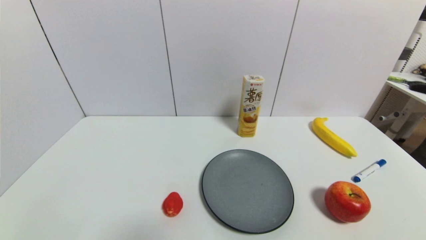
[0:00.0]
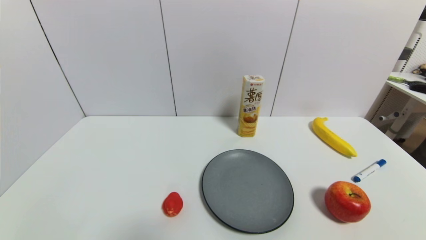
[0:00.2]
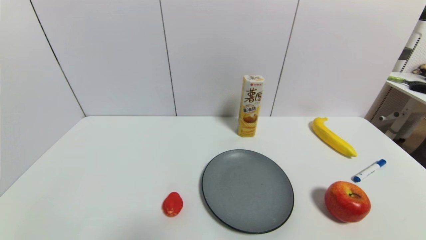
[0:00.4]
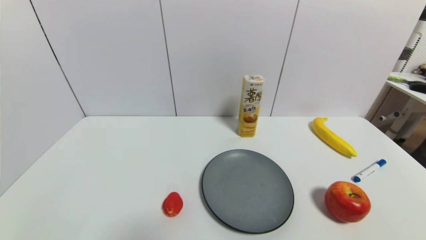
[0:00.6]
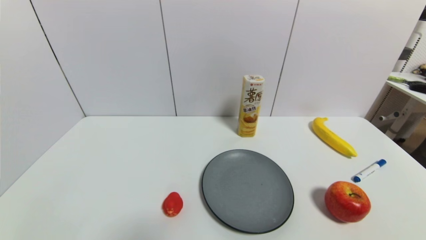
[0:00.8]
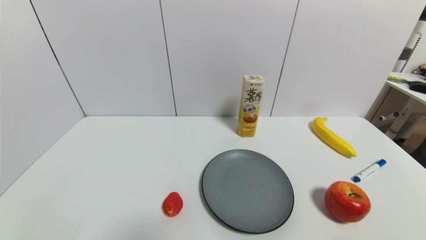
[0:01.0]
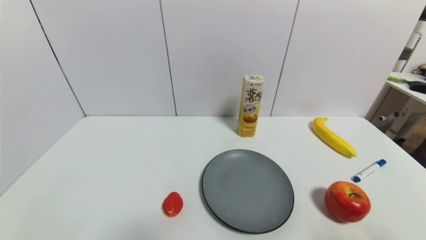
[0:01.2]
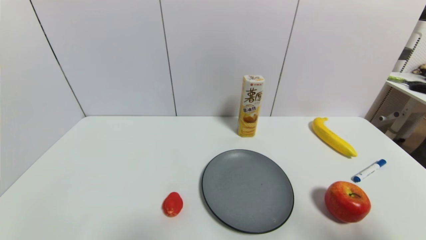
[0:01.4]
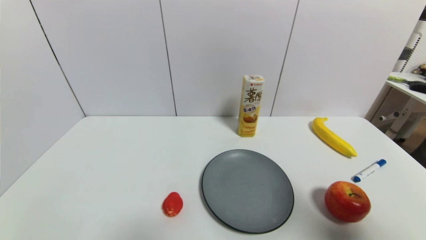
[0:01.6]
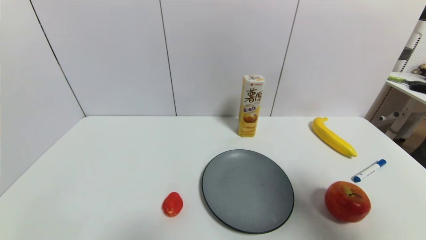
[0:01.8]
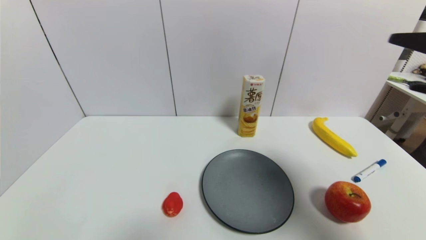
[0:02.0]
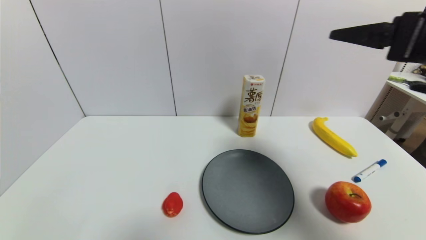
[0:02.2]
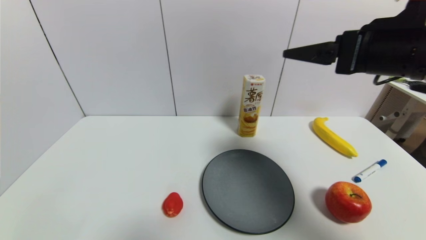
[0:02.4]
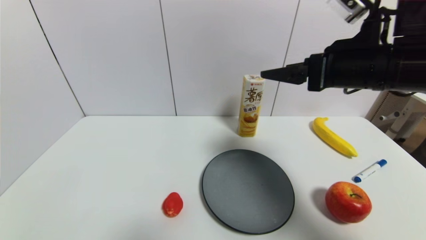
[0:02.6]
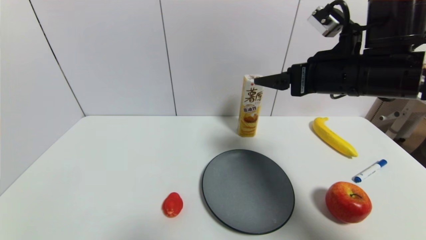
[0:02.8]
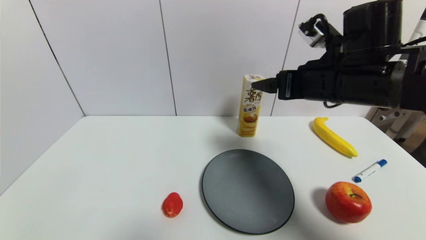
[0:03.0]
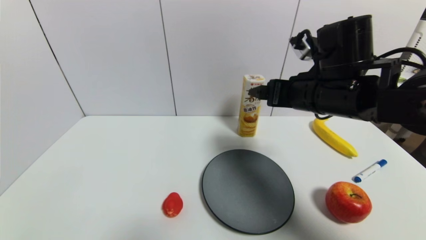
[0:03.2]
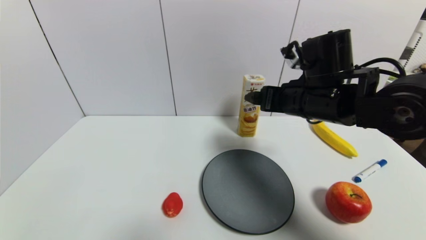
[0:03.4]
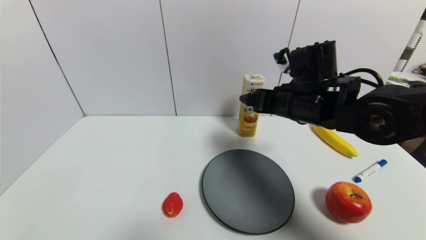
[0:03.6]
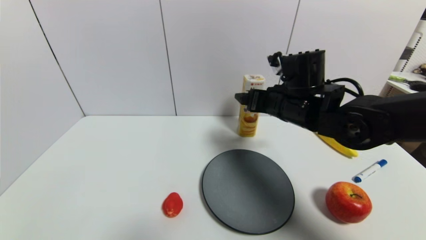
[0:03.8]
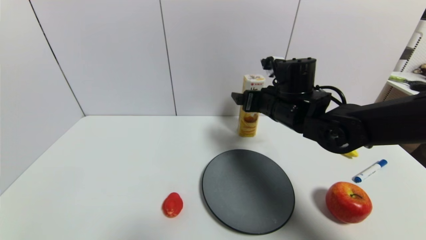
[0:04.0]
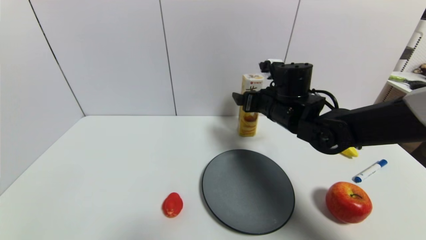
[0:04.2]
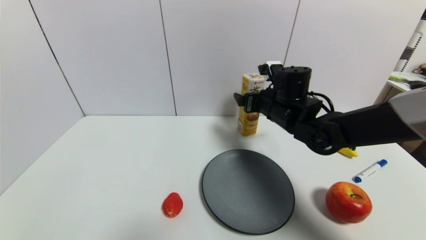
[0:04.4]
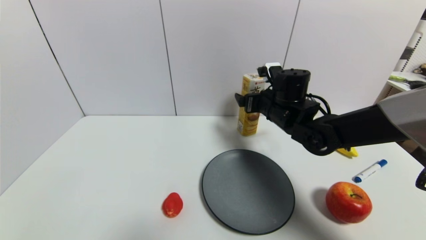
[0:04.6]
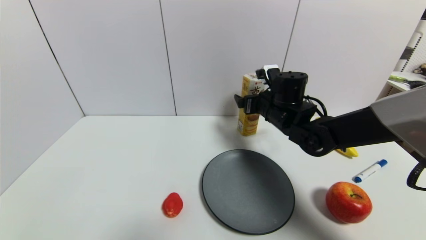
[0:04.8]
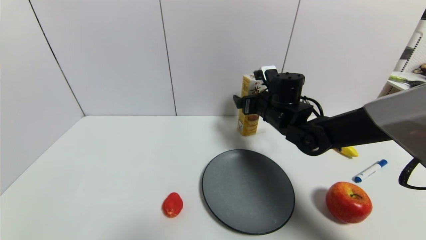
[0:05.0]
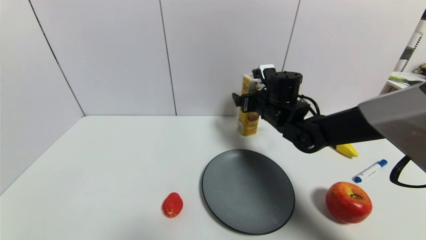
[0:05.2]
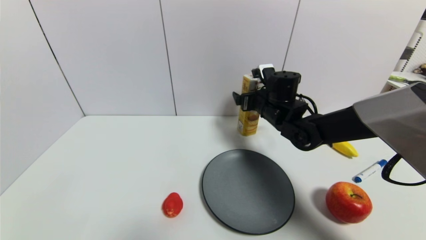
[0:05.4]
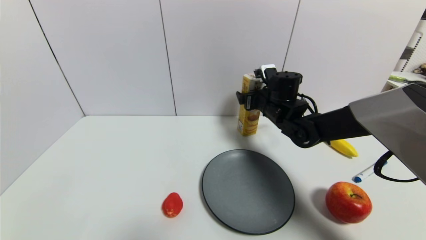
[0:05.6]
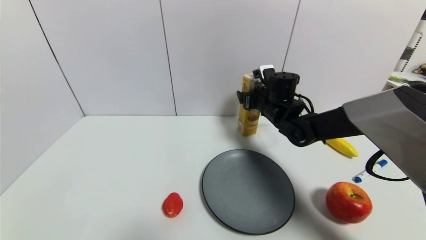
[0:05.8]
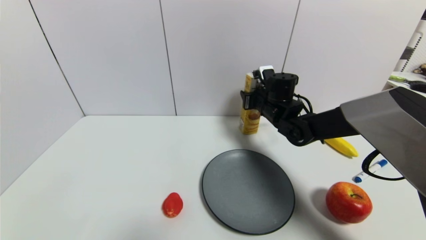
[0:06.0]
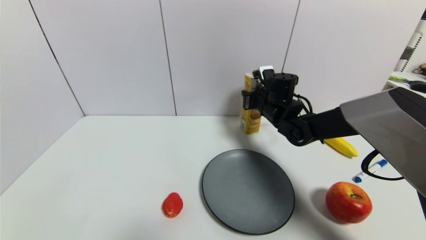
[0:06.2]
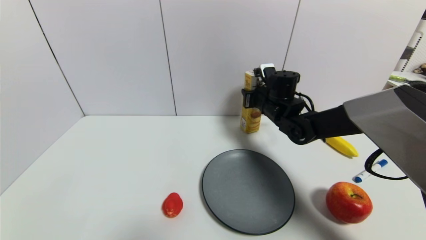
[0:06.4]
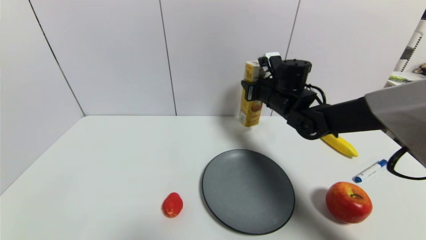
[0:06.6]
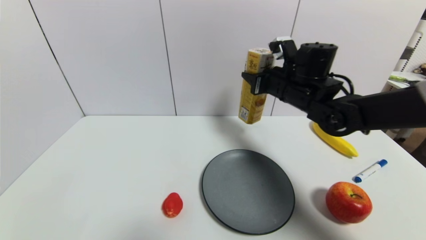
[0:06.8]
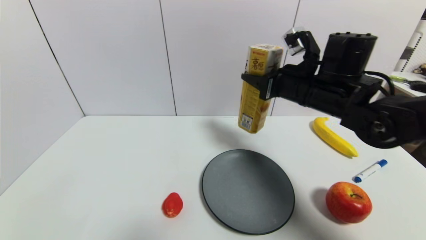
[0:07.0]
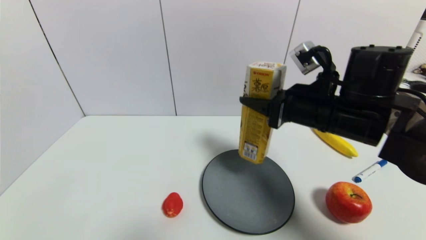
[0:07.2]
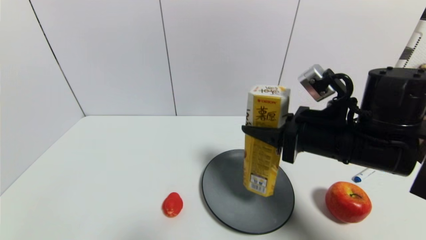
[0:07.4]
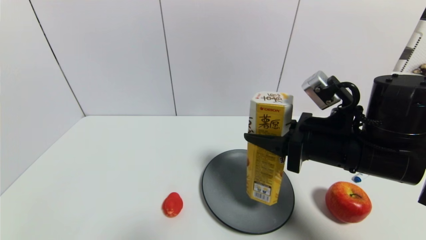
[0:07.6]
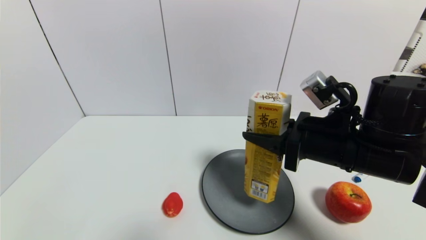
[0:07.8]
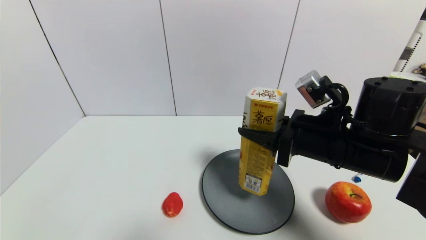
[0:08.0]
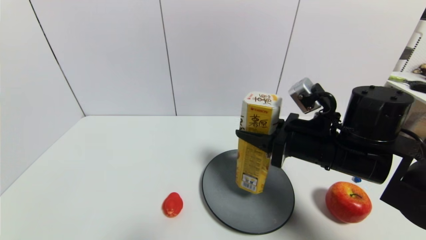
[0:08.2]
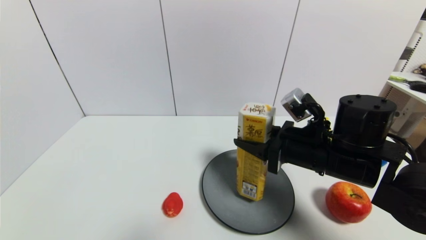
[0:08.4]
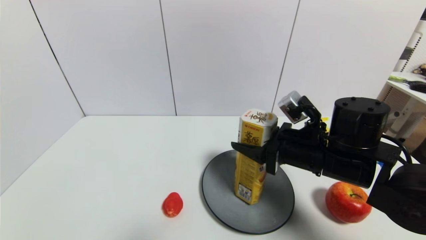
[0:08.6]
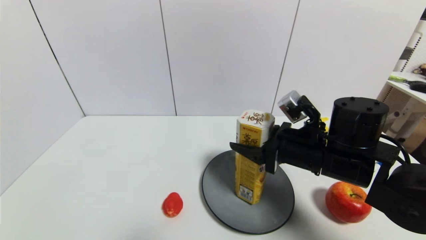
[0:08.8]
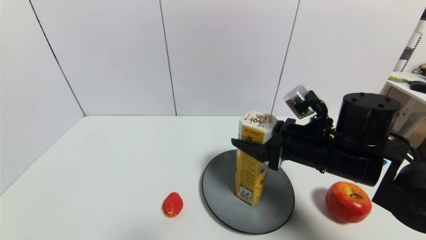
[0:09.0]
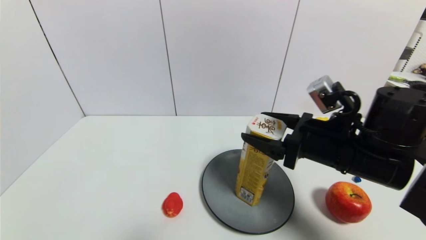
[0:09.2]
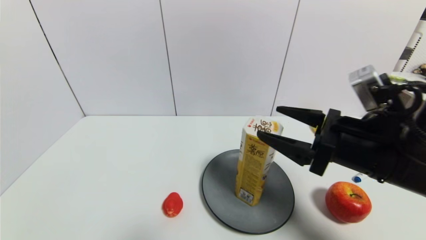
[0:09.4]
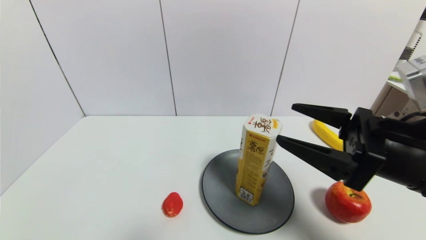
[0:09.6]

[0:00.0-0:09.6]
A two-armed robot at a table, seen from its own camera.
Task of the whole recording: use a gripper to pick the target object and place on the gray plate.
Step, 0.0 to 6.2 s: Grasp the potato chips with the right gripper.
Step, 6.4 to 9.2 s: Place the potato chips on the gray plate with the right gripper.
0.0 to 1.6 s: The right gripper heads upward, covering some 20 cm.
1.6 to 3.2 s: The right gripper is displaced forward and to the left by some 30 cm.
3.2 to 4.8 s: The right gripper goes some 15 cm forward and downward.
4.8 to 6.4 s: The right gripper closes.
6.4 to 8.0 s: The right gripper goes approximately 20 cm backward.
8.0 to 9.6 s: The right gripper shifts about 5 cm backward, and opens its fingers.

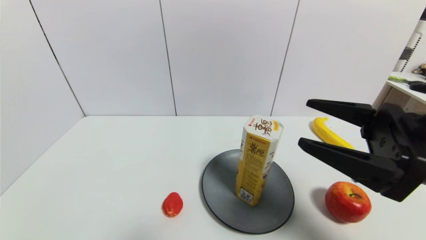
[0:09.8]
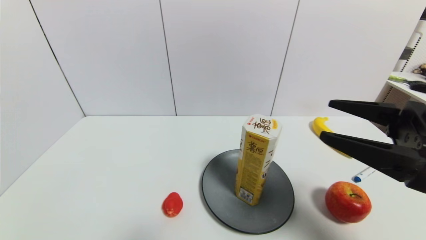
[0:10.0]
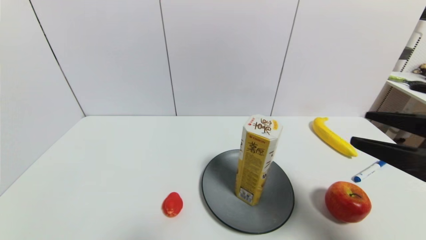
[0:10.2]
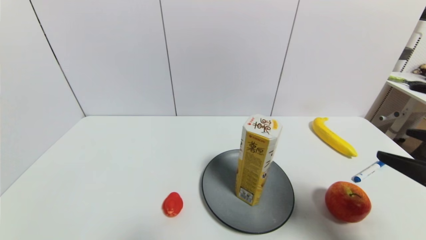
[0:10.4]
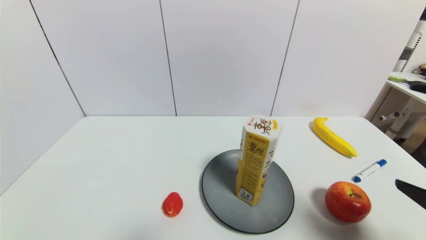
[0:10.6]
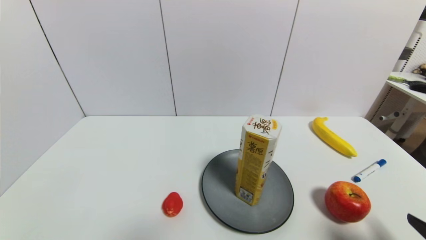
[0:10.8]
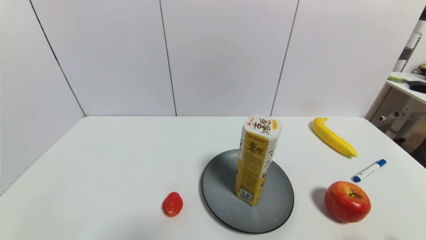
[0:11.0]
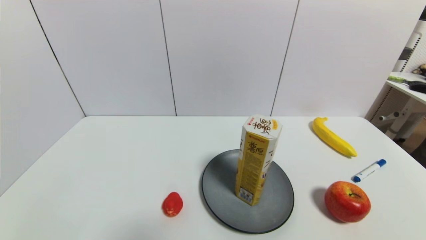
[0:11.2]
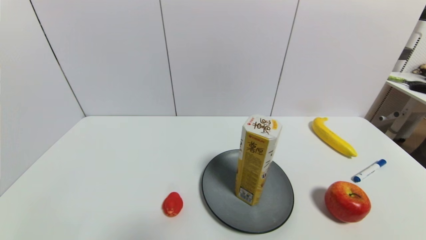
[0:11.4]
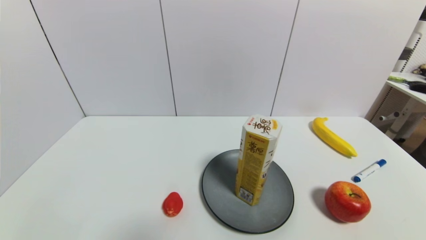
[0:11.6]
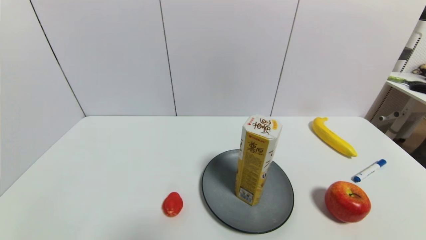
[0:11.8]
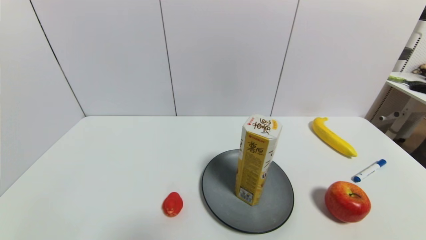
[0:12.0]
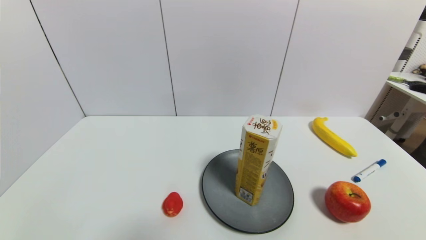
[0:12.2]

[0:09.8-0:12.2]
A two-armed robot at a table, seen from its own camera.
Task of the whole recording: use a gripper to pick the target object and place on the gray plate.
9.8 to 11.0 s: The right gripper travels backward, downward and to the right by some 20 cm.

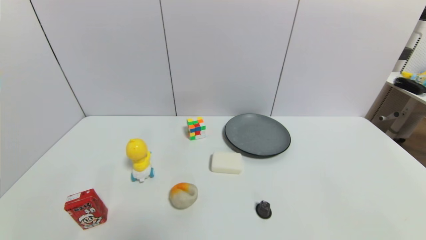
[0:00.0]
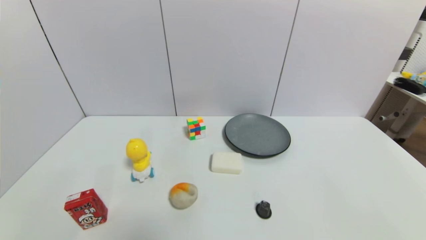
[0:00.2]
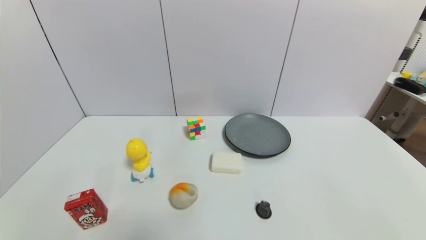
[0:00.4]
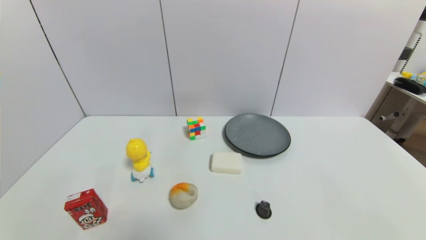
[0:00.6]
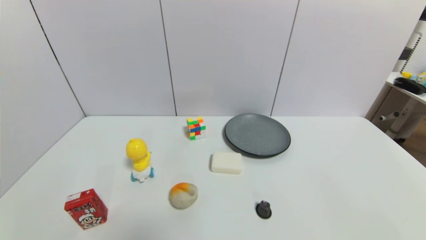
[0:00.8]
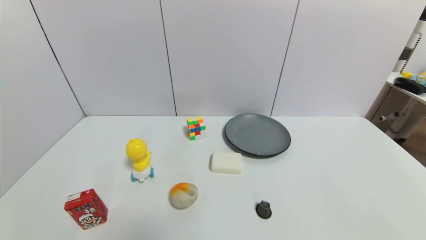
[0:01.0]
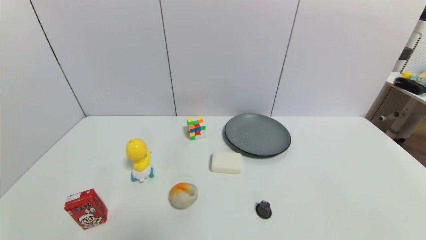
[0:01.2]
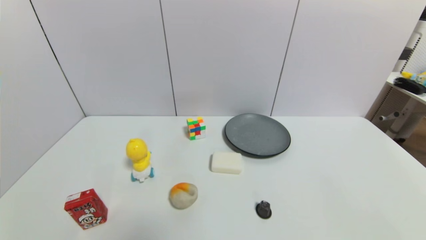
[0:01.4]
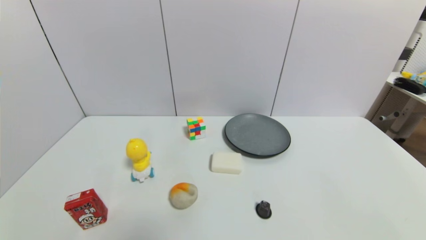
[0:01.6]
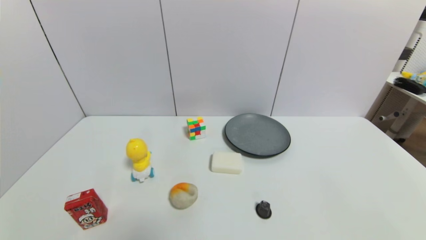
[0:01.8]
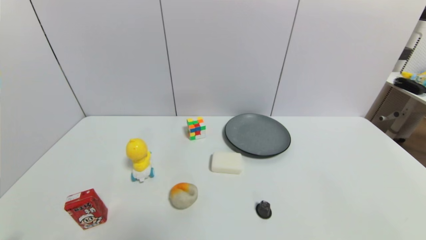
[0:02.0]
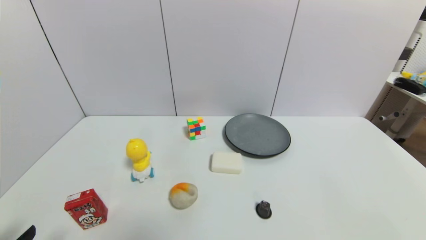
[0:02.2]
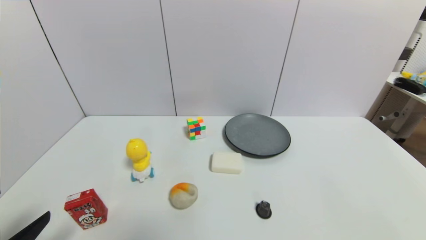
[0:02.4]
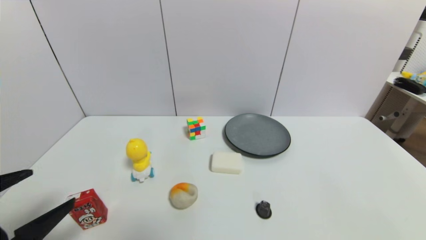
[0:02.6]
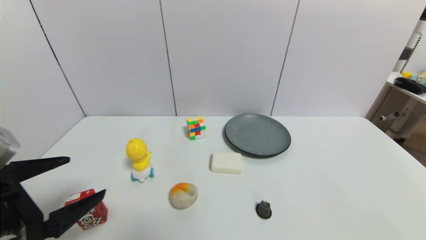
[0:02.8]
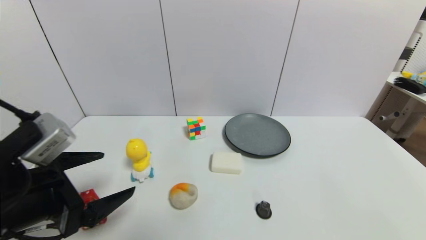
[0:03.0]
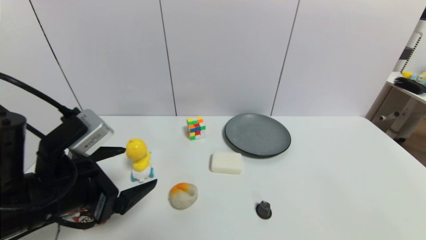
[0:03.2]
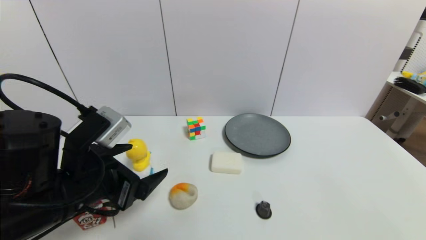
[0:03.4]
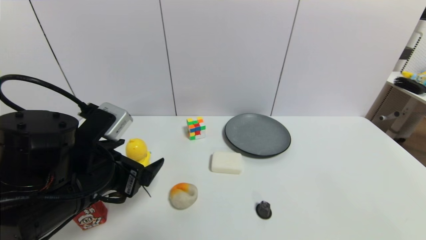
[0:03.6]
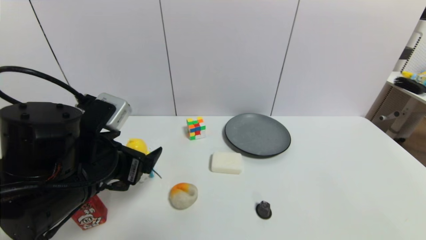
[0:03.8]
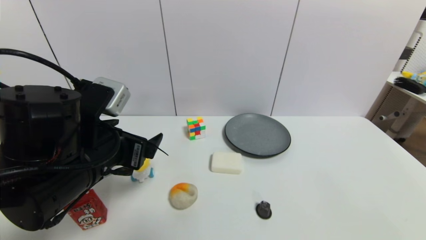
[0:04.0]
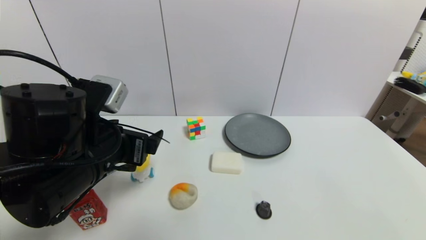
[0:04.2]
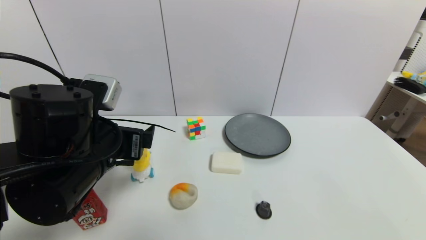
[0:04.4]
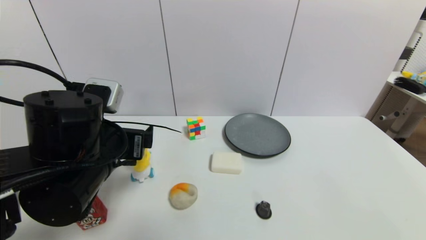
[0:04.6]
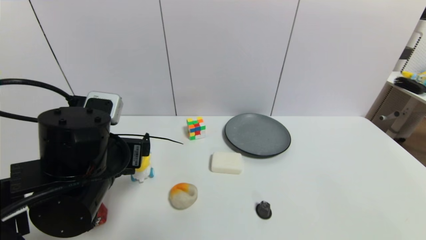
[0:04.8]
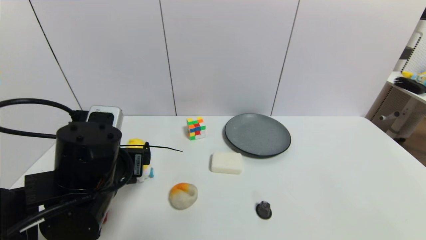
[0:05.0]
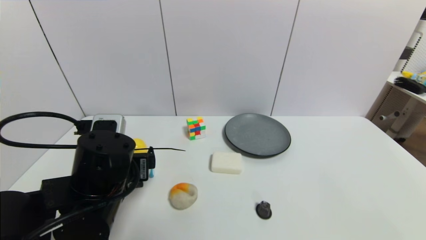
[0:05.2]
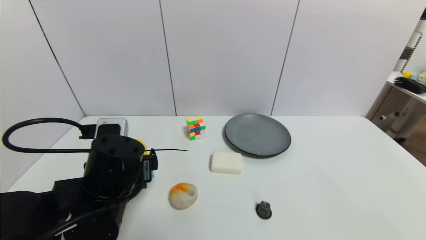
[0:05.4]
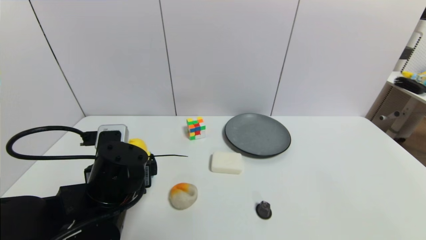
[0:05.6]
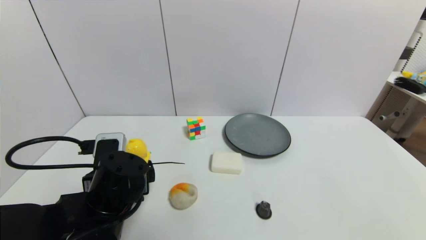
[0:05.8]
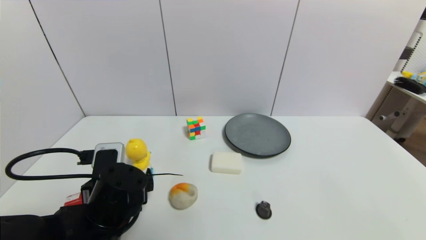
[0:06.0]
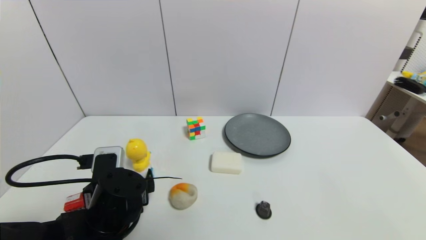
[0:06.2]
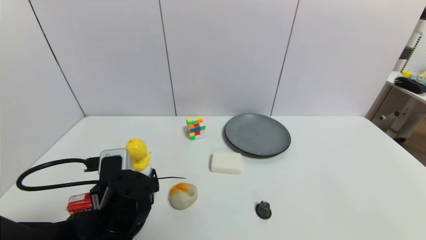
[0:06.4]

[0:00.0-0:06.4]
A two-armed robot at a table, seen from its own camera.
Task of the whole recording: use a gripper to pick the target object and place on the gray plate.
0.0 to 1.6 s: Both grippers stay put.
1.6 to 3.2 s: The left gripper shifts approximately 25 cm forward, upward and to the right.
3.2 to 4.8 s: The left gripper changes place by some 5 cm.
4.8 to 6.4 s: The left gripper goes approximately 10 cm downward.
